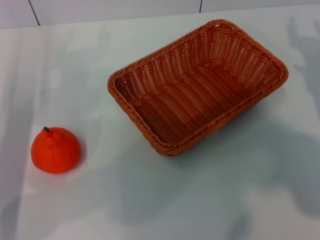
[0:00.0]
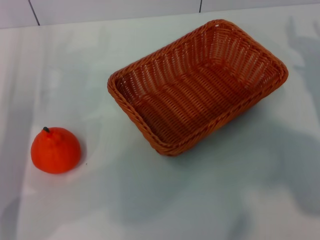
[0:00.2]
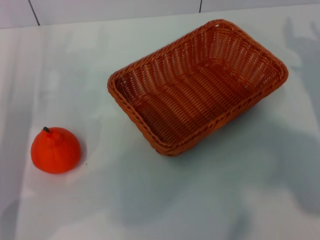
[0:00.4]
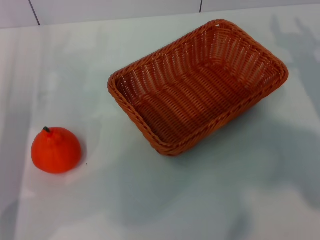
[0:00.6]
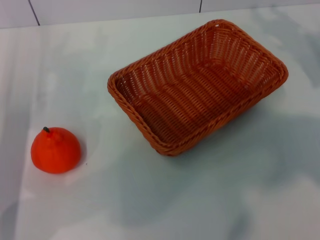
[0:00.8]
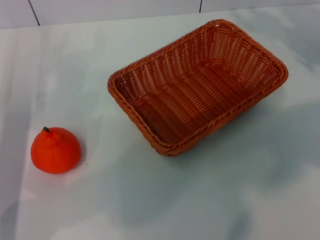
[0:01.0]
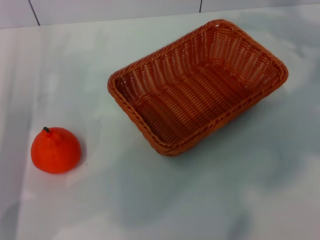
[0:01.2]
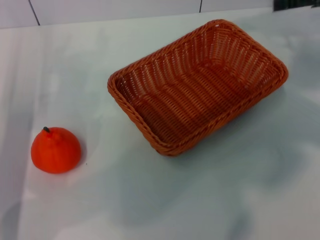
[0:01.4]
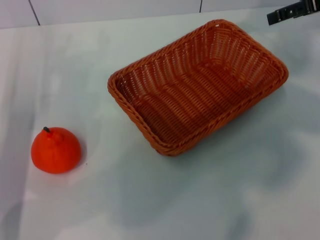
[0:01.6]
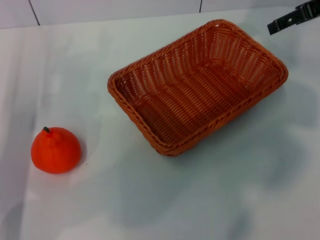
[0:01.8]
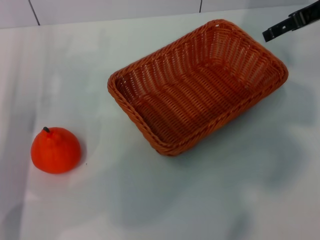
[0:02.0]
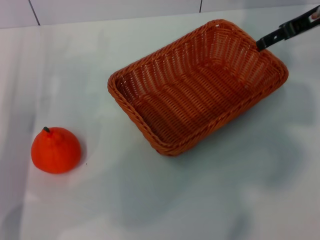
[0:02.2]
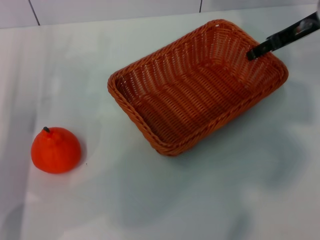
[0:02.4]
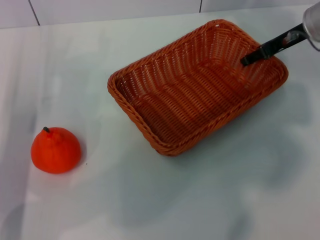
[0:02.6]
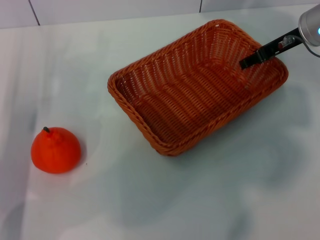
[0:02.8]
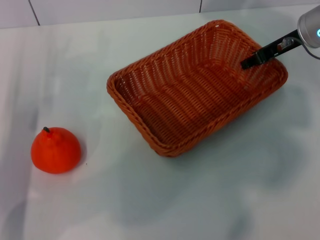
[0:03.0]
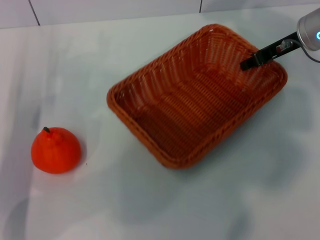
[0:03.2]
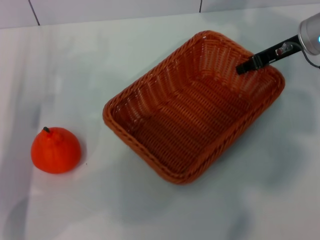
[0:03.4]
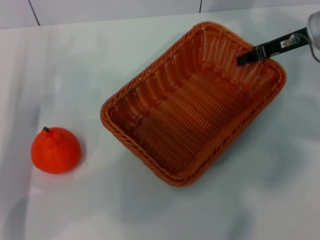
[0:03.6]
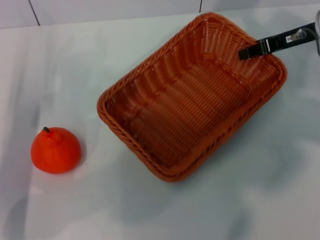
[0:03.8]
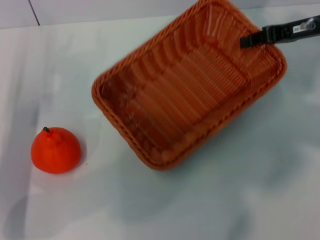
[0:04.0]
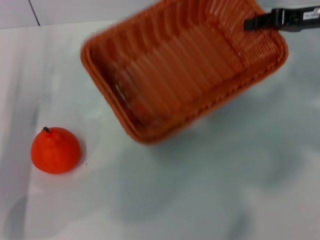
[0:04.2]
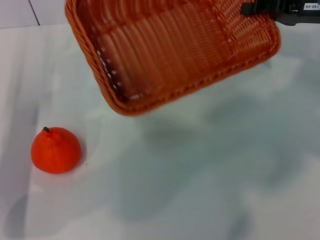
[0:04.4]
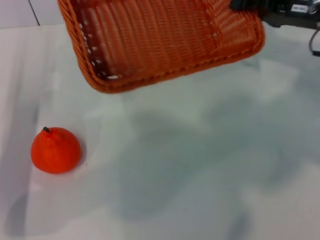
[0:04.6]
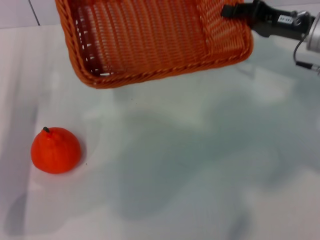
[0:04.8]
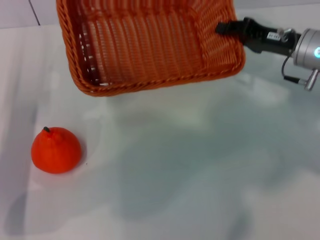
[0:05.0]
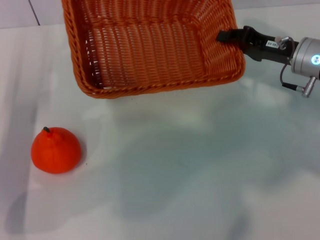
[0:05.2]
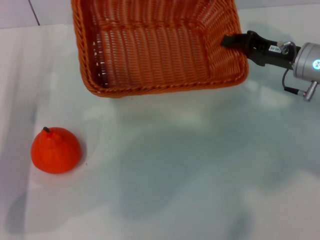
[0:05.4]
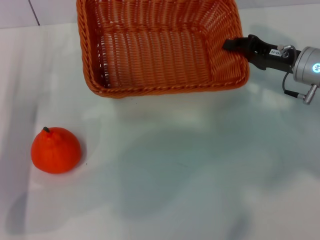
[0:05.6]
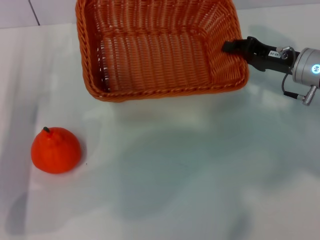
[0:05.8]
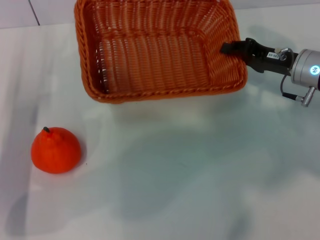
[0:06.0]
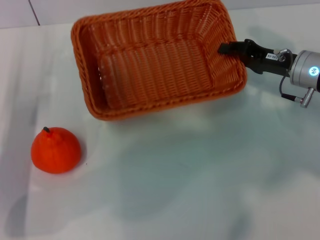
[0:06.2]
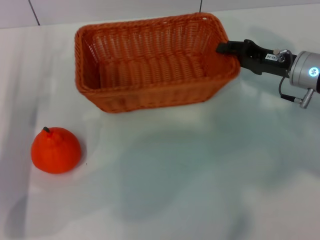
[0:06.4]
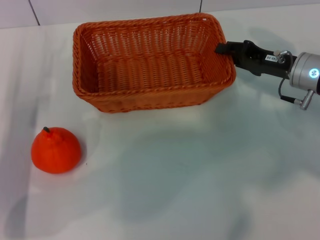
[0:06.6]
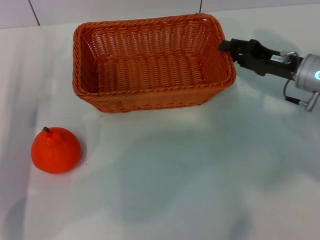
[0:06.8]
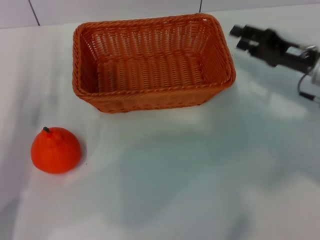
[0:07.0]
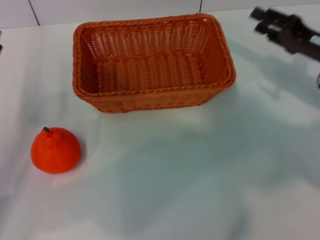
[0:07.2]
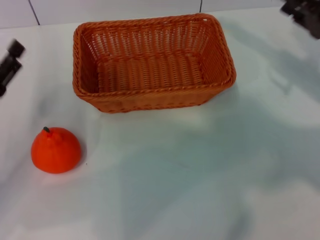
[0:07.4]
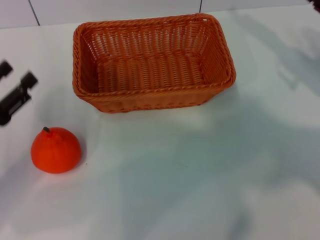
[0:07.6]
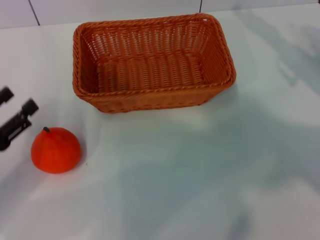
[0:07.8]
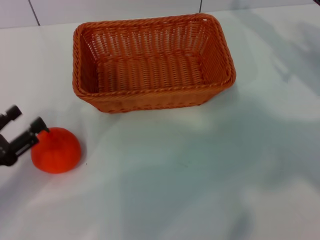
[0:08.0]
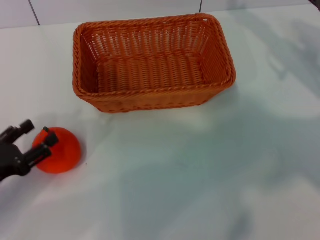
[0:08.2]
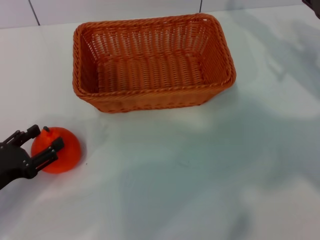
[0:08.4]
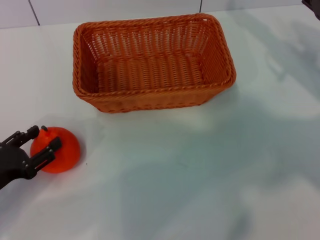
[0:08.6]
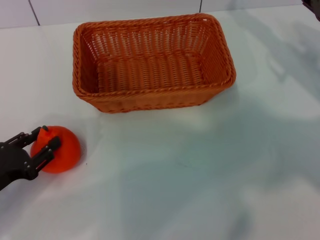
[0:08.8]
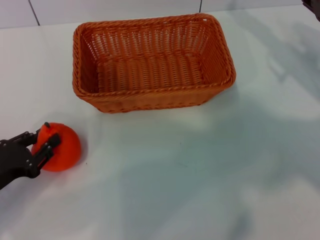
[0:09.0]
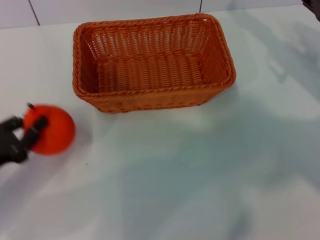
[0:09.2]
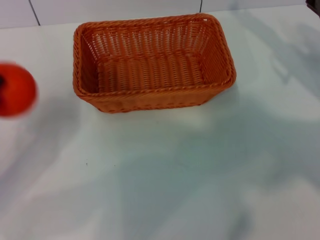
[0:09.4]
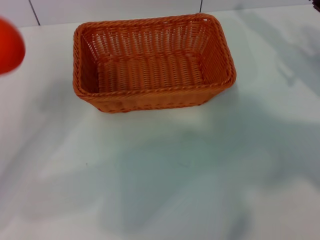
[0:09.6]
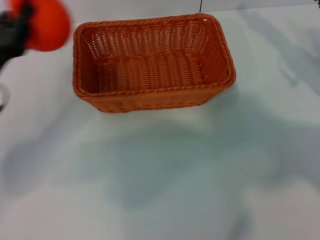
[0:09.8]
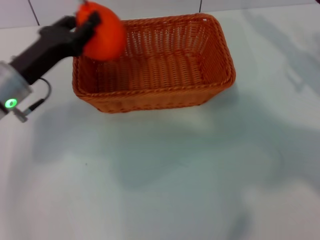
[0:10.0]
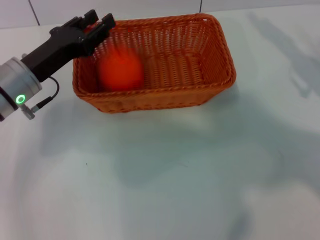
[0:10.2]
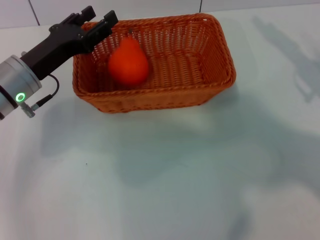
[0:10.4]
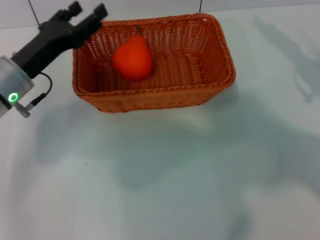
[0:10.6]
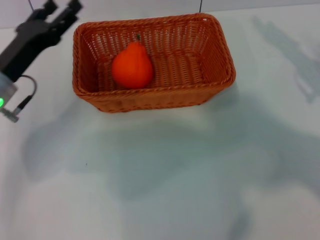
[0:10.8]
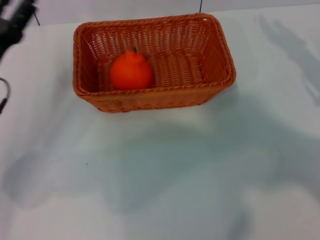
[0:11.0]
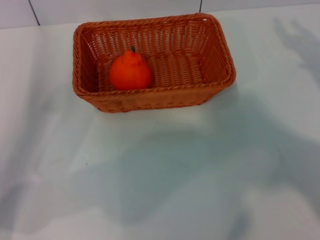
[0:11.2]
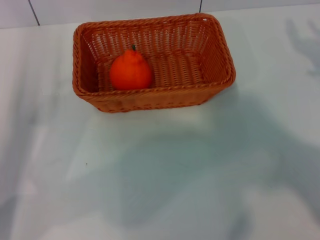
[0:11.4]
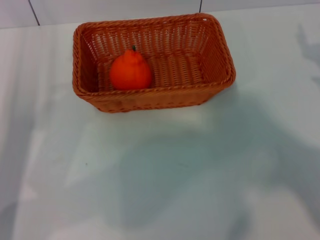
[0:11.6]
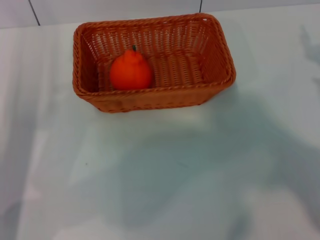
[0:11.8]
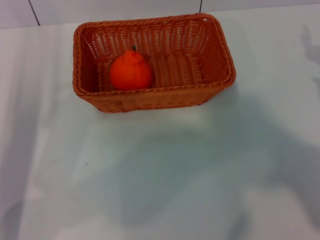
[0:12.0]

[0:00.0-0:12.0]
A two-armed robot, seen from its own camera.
Task of the whole recording: the right gripper pick up the yellow basket and place it horizontally in the middle of the table, the left gripper pick up the orange and place it into the yellow basket.
Step, 0:00.0 to 0:03.6: Pick up the light basket with the right gripper.
Step, 0:04.0 to 0:06.8: Place the light basket in the center of view with the right gripper.
Step, 0:07.0 to 0:09.0: Pick up the orange with the left gripper.
Step, 0:09.4 to 0:10.2: Place the orange into the light basket with the left gripper.
0:00.0 to 0:01.6: The right gripper shifts about 20 cm upward and forward, and opens up.
0:01.6 to 0:03.0: The right gripper goes roughly 10 cm downward and to the left, and closes.
0:03.0 to 0:04.4: The right gripper moves roughly 5 cm, and closes its fingers.
0:04.4 to 0:06.0: The right gripper travels downward by about 10 cm.
0:06.0 to 0:07.6: The right gripper is displaced to the right by approximately 10 cm, and opens up; the left gripper changes place by about 5 cm.
0:07.6 to 0:09.0: The left gripper shifts by roughly 5 cm, and closes its fingers.
0:09.0 to 0:10.4: The right gripper shifts by roughly 5 cm. Meanwhile the left gripper heads forward, to the right and upward, covering approximately 20 cm, and closes, then opens again.
0:10.4 to 0:12.0: The left gripper shifts about 10 cm backward and to the left, and opens. The right gripper shifts about 5 cm backward.
